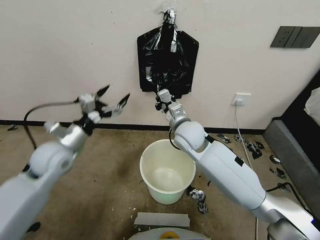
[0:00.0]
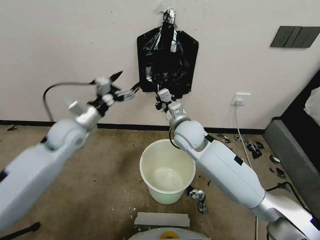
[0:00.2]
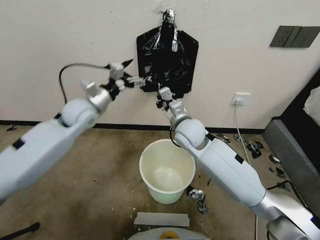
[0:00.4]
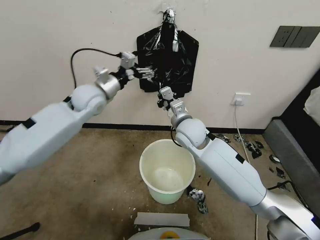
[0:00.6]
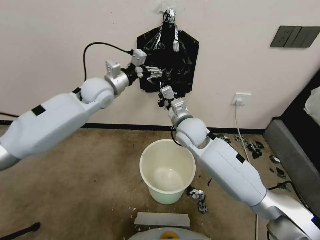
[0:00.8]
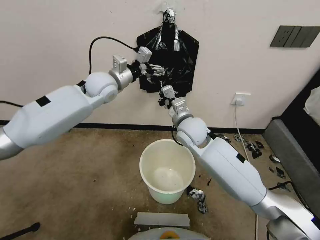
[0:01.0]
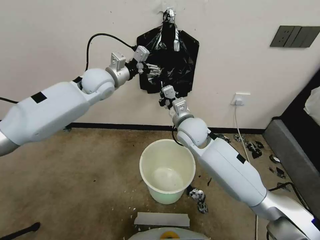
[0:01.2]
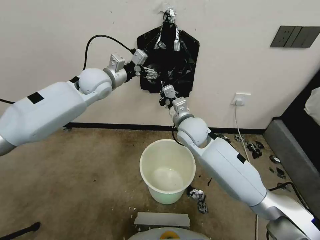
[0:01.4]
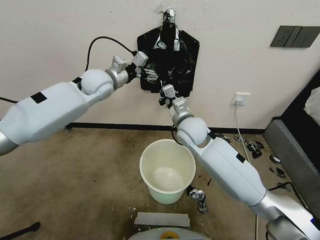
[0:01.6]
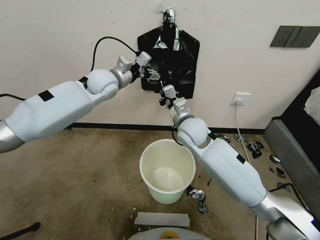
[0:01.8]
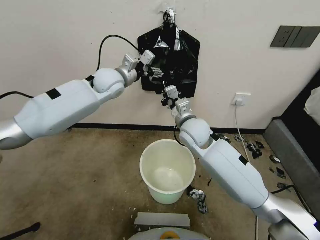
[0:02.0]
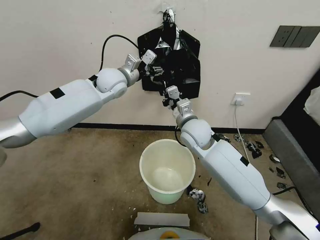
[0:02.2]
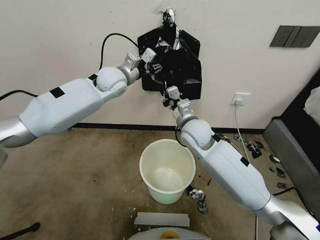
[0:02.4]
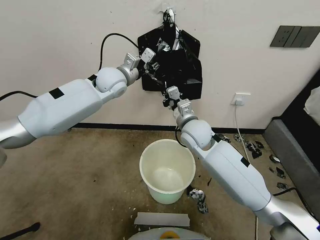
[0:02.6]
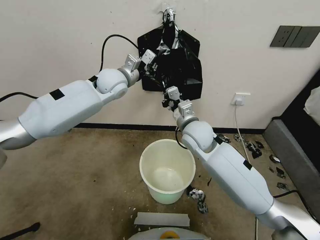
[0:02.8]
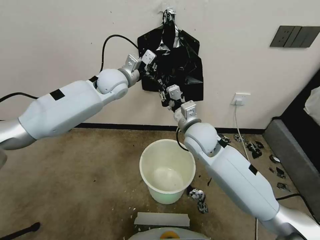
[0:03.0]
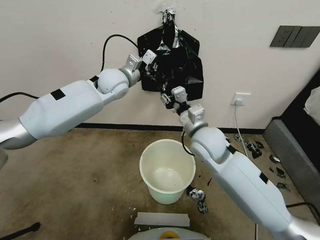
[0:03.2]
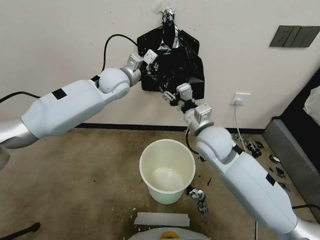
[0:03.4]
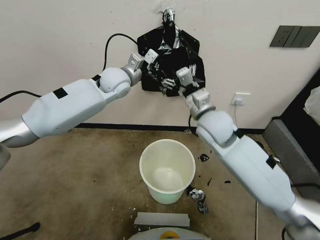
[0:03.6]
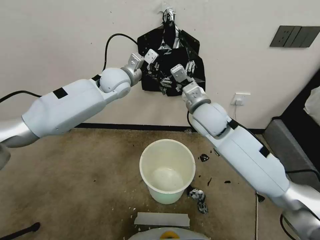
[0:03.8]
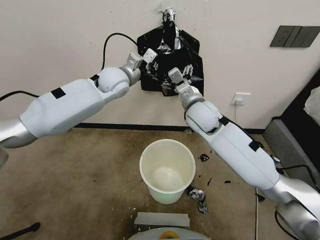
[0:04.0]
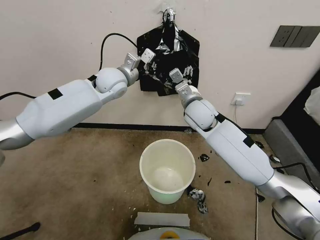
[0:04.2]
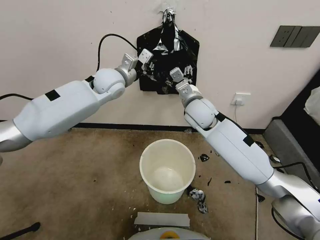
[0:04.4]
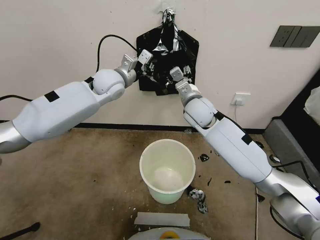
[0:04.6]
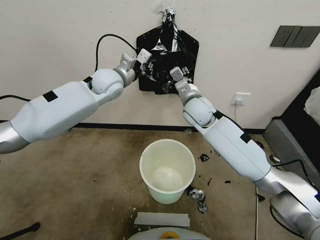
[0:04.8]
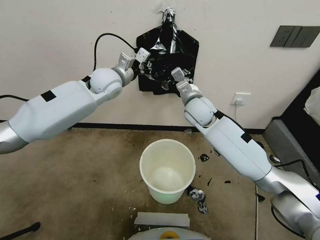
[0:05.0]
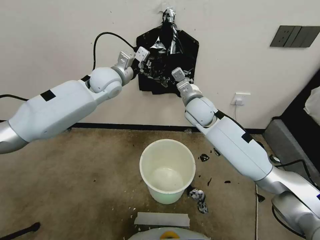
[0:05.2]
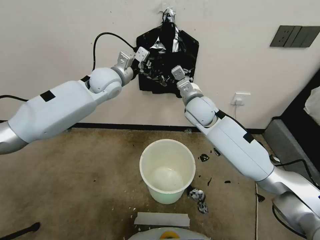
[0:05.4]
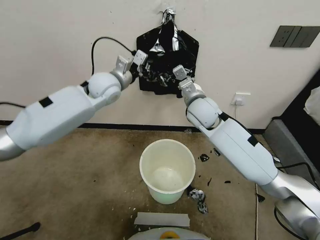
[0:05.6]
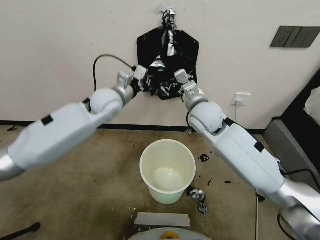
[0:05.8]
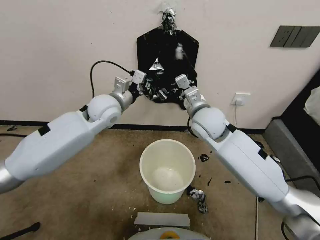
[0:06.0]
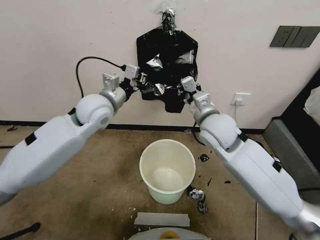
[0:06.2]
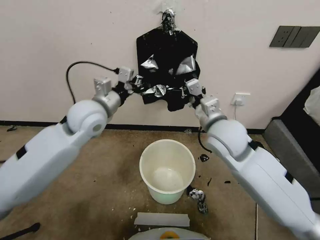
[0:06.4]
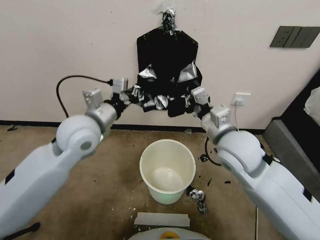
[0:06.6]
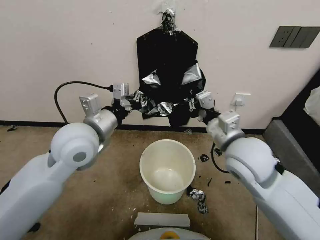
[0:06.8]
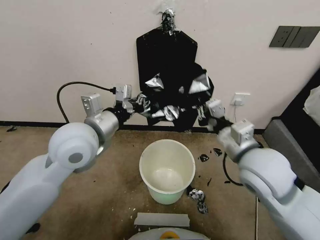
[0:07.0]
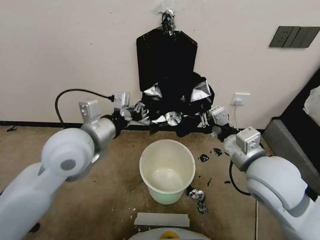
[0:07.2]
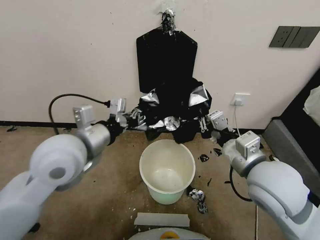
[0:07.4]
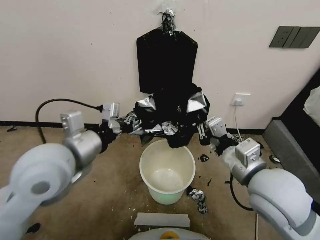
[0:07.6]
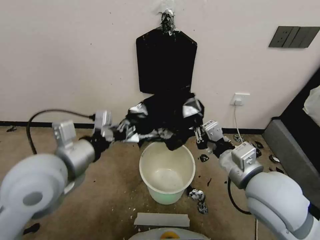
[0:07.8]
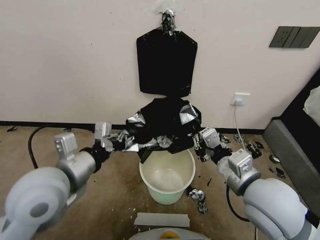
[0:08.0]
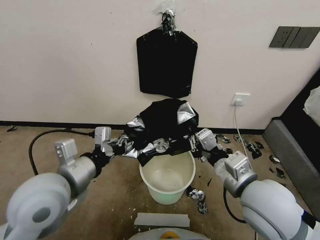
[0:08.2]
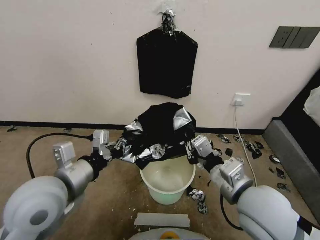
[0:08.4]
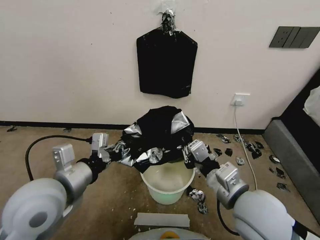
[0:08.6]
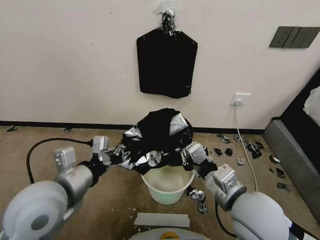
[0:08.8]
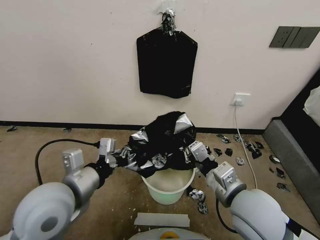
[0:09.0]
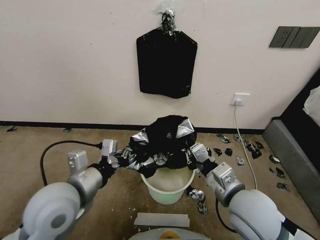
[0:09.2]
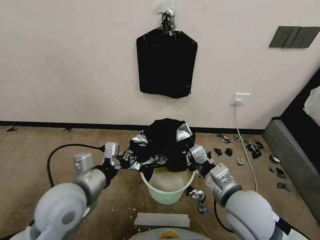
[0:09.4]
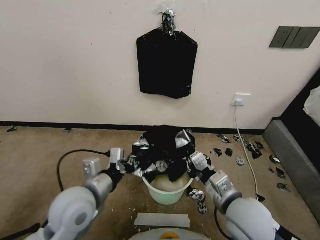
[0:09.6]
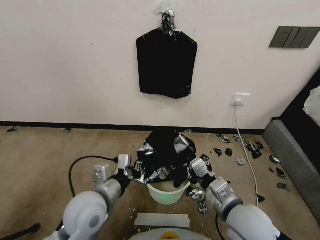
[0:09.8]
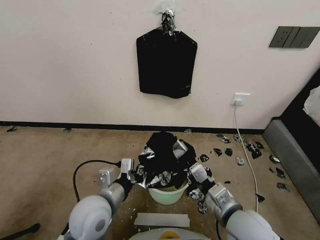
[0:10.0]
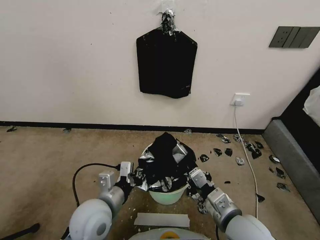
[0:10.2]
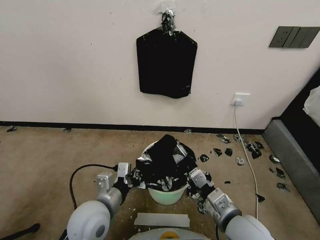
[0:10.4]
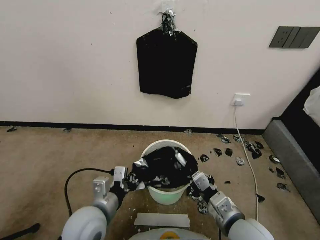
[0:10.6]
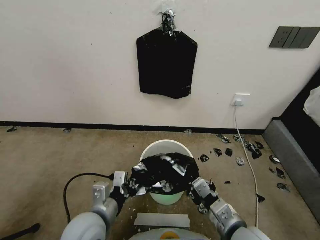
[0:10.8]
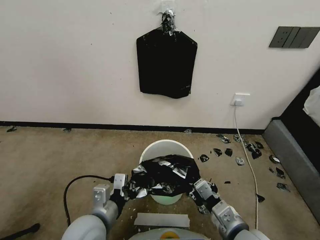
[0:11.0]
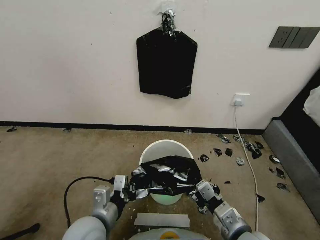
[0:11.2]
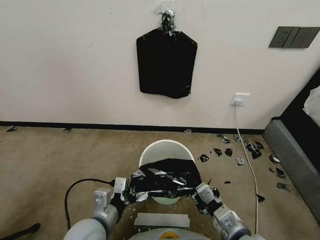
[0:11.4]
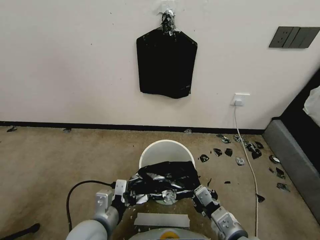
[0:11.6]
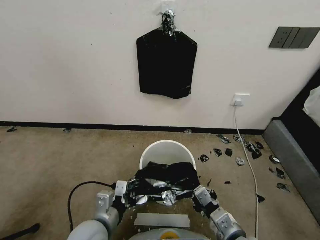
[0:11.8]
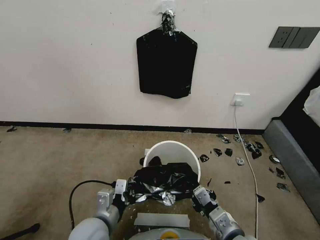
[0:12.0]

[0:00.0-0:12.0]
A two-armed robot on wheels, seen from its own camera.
Task of the whole recording: Place a trash bag onto the trash bin.
0:00.0 to 0:01.6: The left gripper goes about 25 cm forward, upward and to the right.
0:01.6 to 0:03.0: The left gripper closes its fingers.
0:03.0 to 0:04.4: The right gripper is displaced forward by approximately 10 cm, and opens its fingers.
0:04.4 to 0:06.0: The grippers both shift backward by some 5 cm. The right gripper closes.
0:06.0 to 0:07.6: The left gripper travels backward by approximately 20 cm; the right gripper is displaced backward and to the right by some 20 cm.
0:07.6 to 0:09.0: The left gripper heads downward, covering roughly 5 cm, while the right gripper shifts by roughly 5 cm.
0:09.0 to 0:10.4: The grippers both shift downward by some 10 cm.
0:10.4 to 0:12.0: The left gripper moves about 5 cm. The right gripper changes place by some 5 cm.

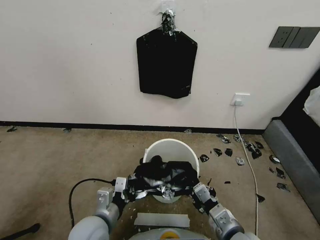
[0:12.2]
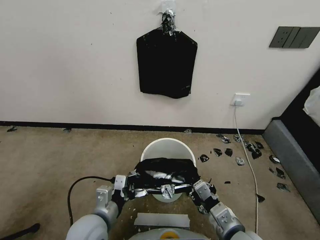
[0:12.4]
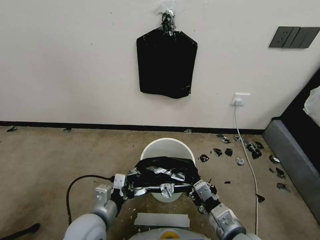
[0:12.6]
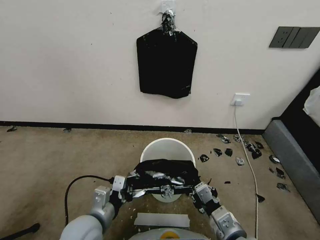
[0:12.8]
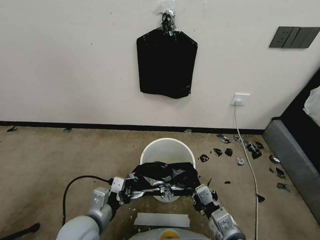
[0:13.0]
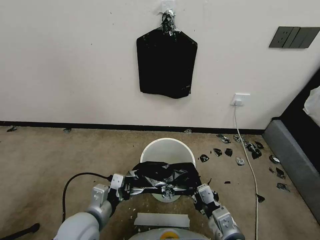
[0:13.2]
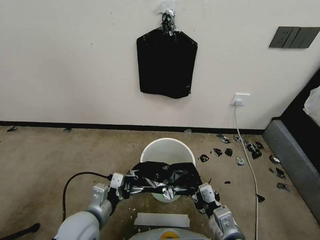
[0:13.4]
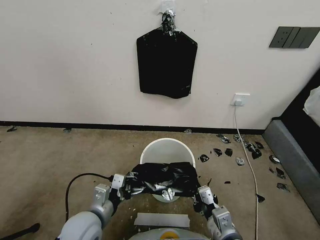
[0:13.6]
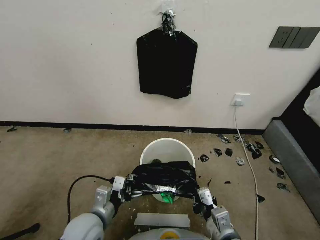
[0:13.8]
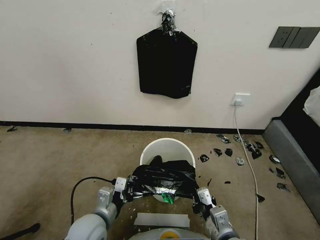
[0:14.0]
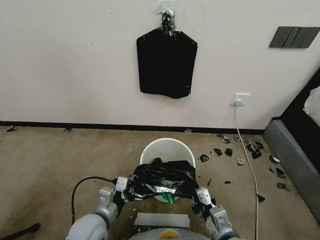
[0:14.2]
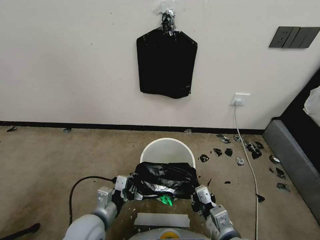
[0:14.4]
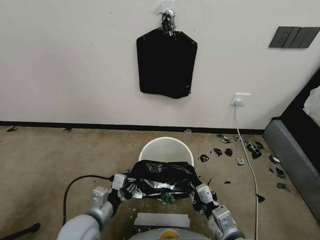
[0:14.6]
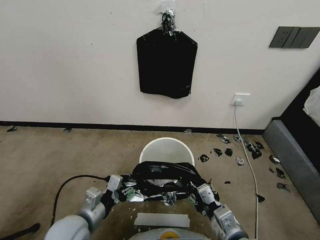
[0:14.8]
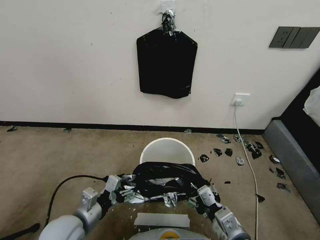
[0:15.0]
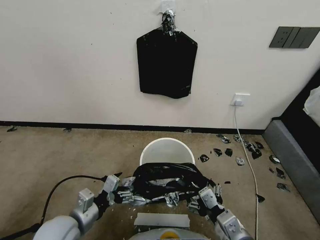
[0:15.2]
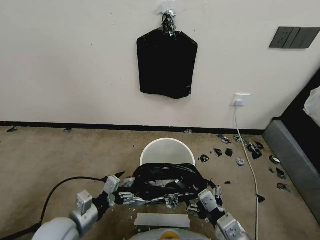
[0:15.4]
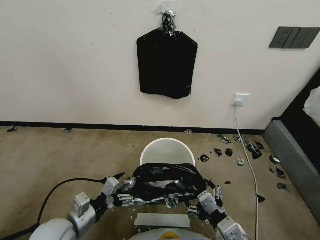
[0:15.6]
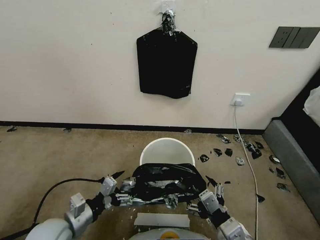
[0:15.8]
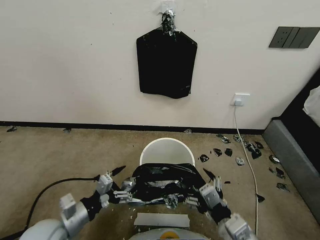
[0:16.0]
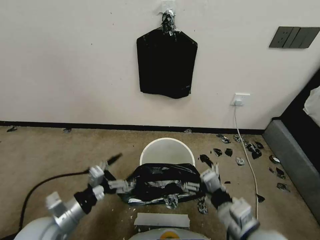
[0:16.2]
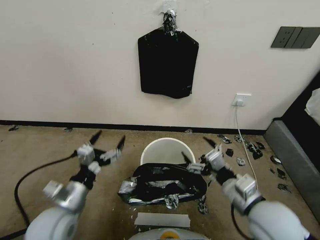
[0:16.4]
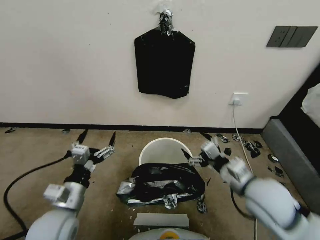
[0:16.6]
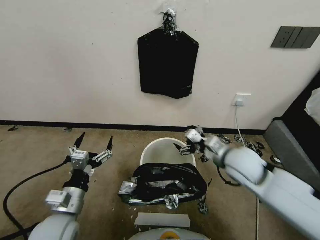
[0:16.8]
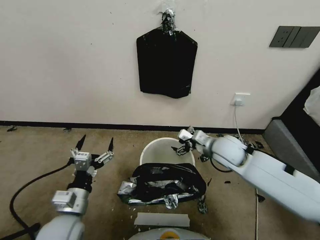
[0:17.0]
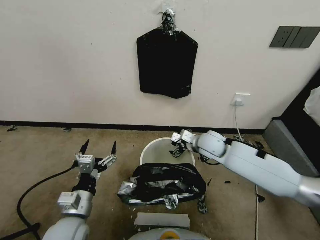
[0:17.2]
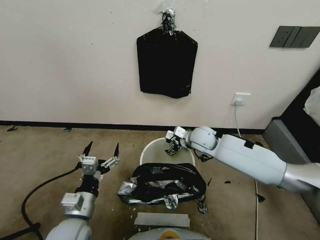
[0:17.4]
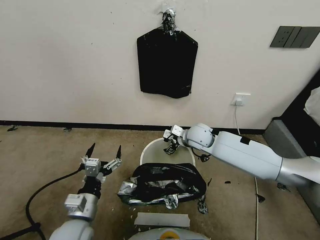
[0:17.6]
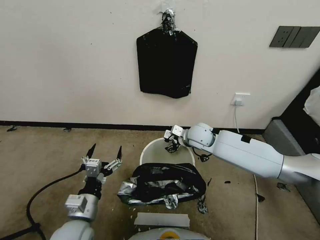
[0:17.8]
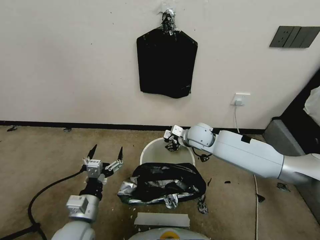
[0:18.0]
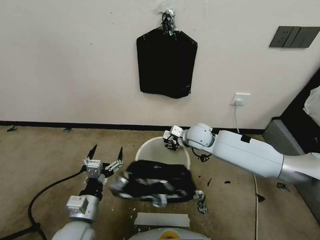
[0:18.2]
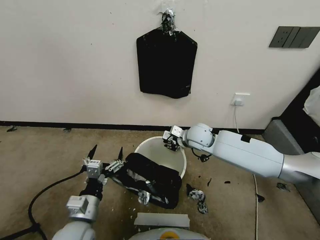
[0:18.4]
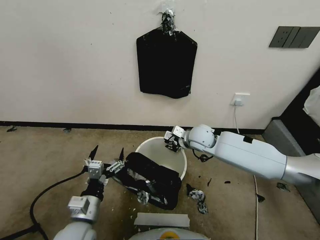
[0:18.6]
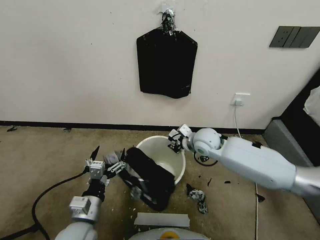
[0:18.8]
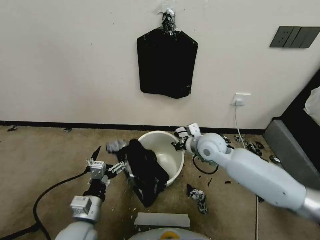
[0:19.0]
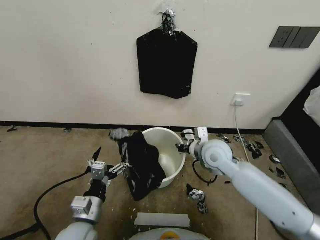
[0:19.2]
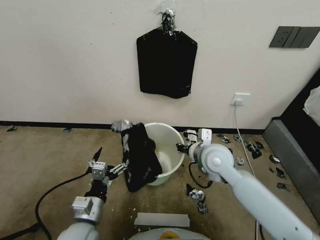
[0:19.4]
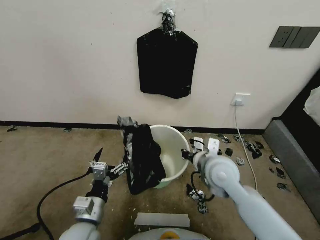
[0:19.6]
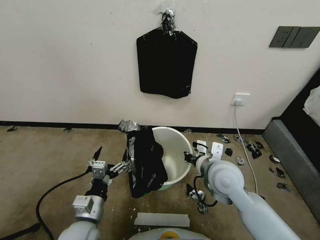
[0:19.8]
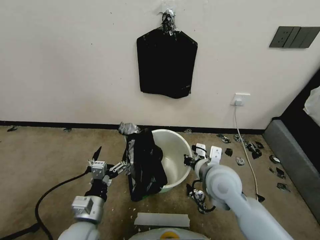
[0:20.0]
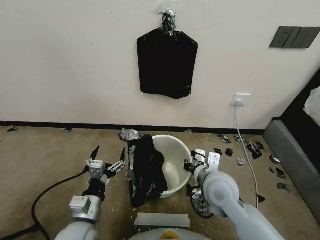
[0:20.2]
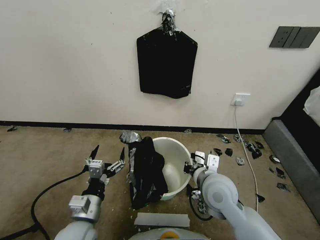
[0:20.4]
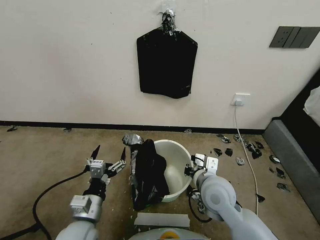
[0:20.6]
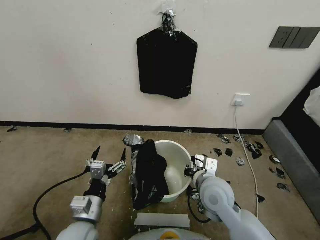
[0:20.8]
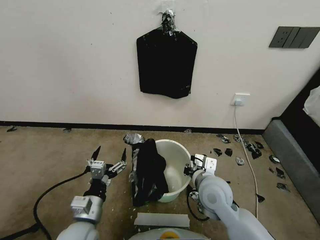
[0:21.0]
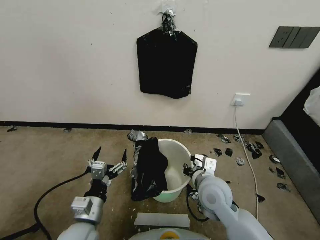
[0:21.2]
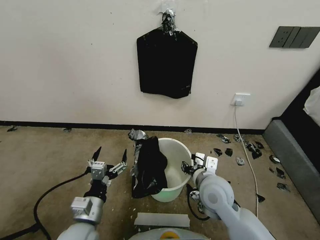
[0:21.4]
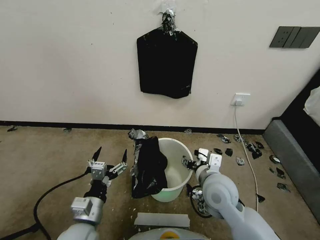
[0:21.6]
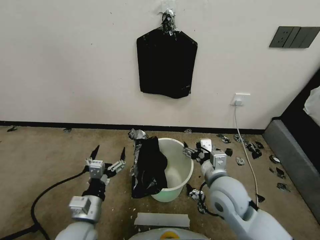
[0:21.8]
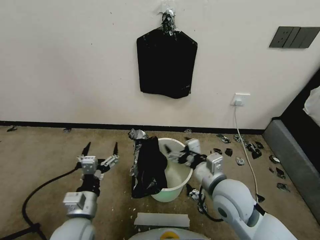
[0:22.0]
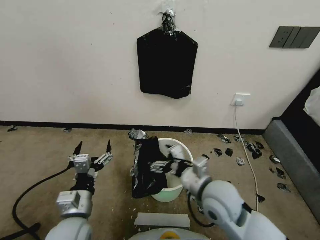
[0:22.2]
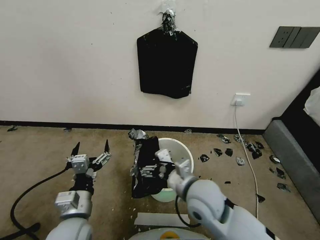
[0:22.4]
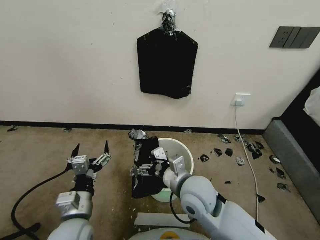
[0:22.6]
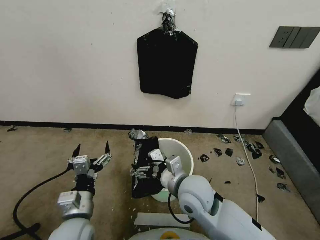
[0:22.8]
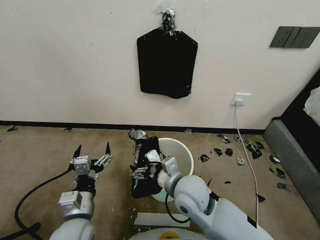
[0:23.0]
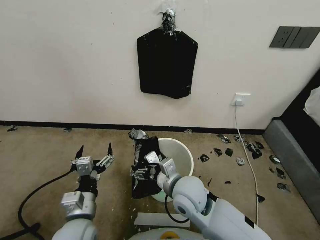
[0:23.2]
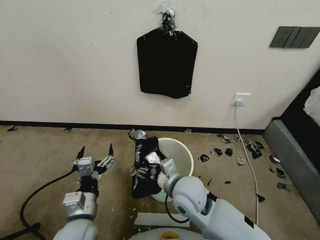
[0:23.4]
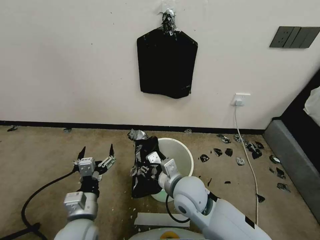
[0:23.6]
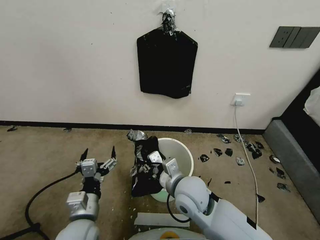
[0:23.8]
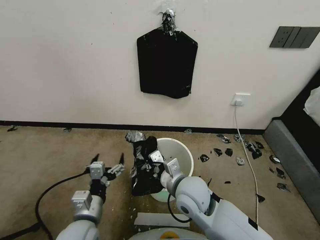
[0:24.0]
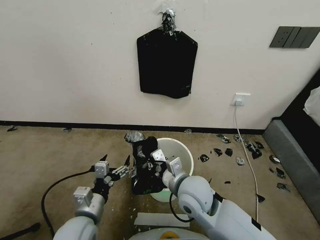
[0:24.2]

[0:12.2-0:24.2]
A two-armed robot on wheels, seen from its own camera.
Task of the whole recording: Place a trash bag onto the trash bin.
0:12.2 to 0:13.8: The grippers make only small movements.
0:13.8 to 0:15.2: The right gripper opens. Meanwhile the left gripper shifts some 5 cm to the left, and opens.
0:15.2 to 0:16.6: The right gripper travels forward and upward by some 15 cm.
0:16.6 to 0:18.2: The left gripper shifts some 5 cm downward. The right gripper travels forward and to the left by some 25 cm, and closes.
0:18.2 to 0:19.8: The right gripper goes roughly 15 cm backward.
0:19.8 to 0:21.2: The right gripper is displaced downward by some 5 cm.
0:21.2 to 0:22.6: The right gripper is displaced to the left by roughly 5 cm, and opens up.
0:22.6 to 0:24.2: The right gripper closes.
